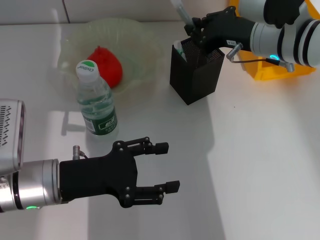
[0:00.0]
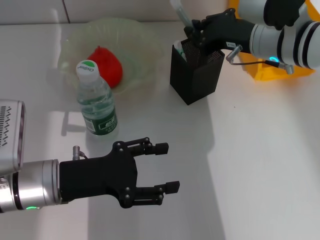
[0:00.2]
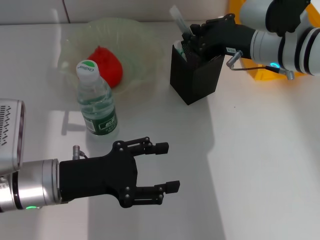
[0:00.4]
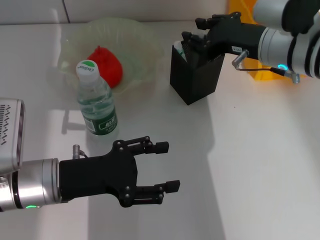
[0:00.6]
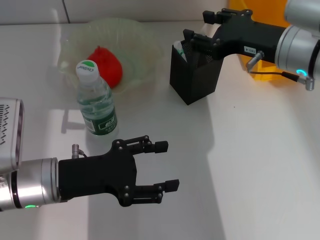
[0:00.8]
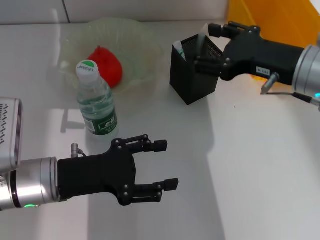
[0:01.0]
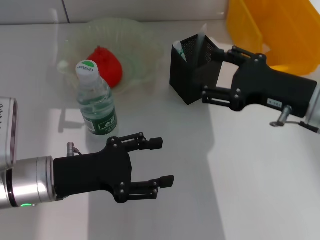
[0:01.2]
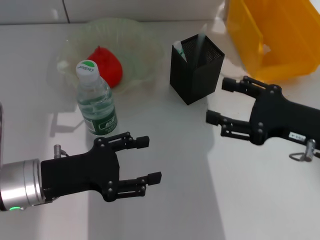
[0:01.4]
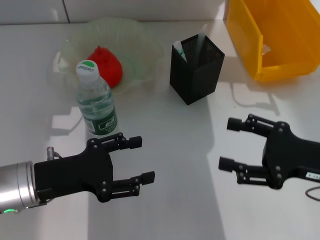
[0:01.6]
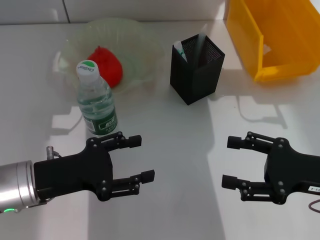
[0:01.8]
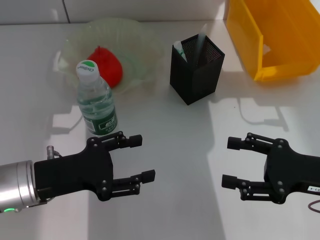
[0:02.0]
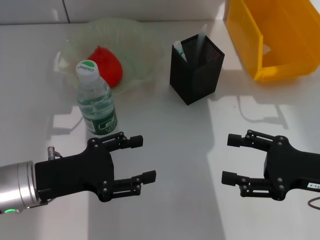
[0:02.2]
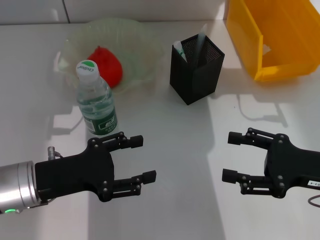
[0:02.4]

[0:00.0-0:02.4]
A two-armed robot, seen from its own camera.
0:00.0 to 0:01.2: The right gripper goes roughly 10 cm backward and to the right, and opens.
0:01.2 to 0:02.4: The right gripper moves backward, downward and to the right, roughly 10 cm.
